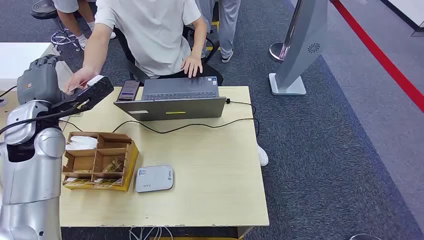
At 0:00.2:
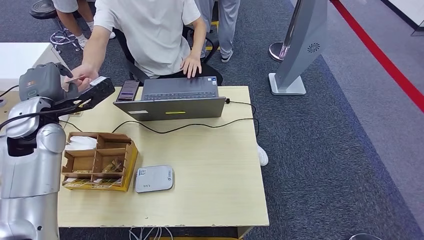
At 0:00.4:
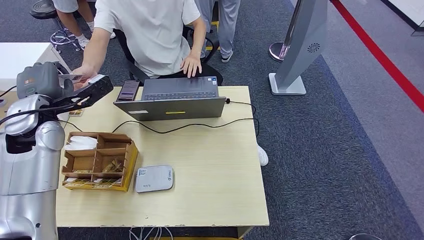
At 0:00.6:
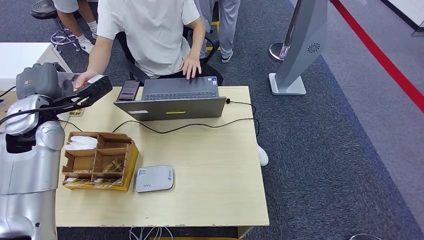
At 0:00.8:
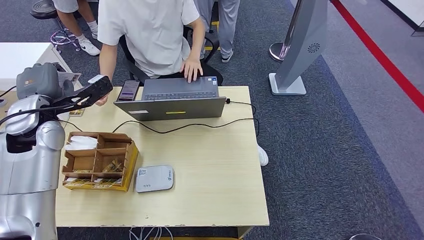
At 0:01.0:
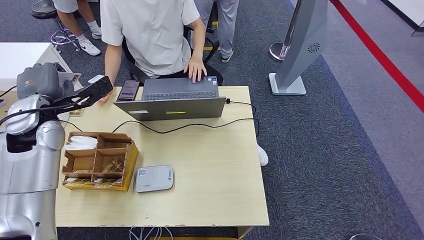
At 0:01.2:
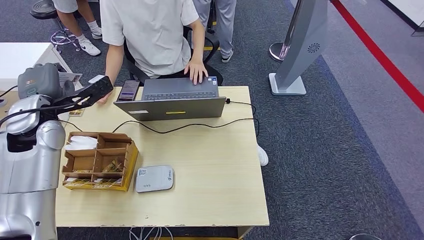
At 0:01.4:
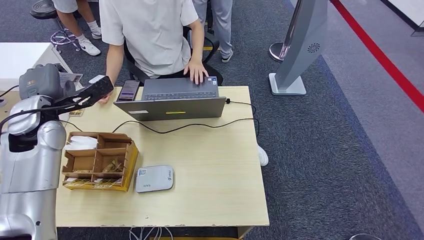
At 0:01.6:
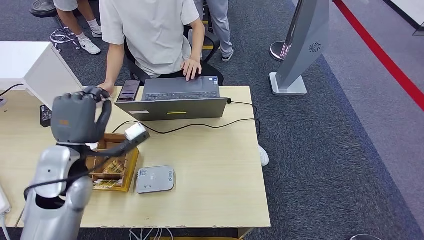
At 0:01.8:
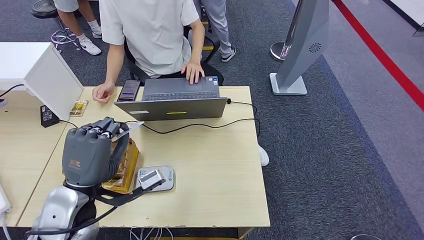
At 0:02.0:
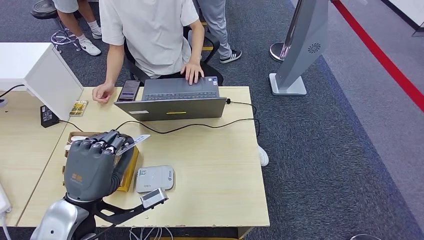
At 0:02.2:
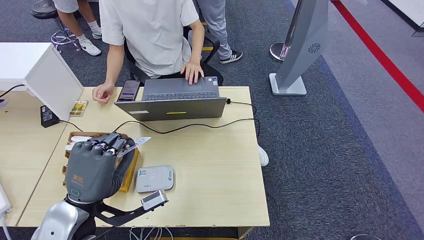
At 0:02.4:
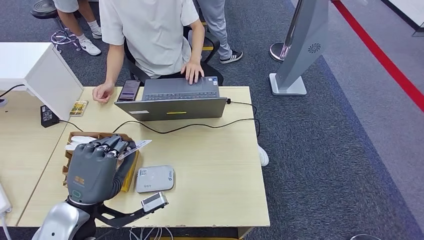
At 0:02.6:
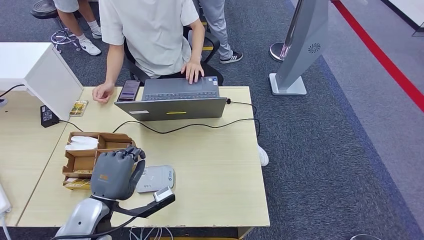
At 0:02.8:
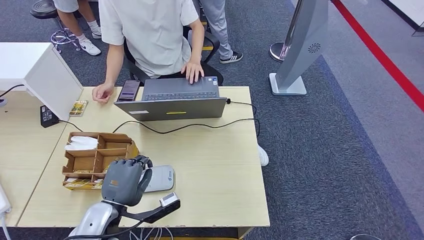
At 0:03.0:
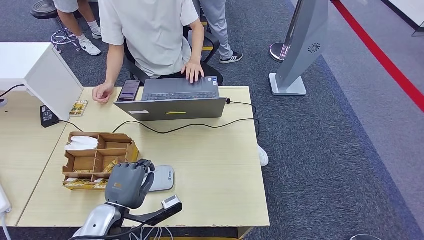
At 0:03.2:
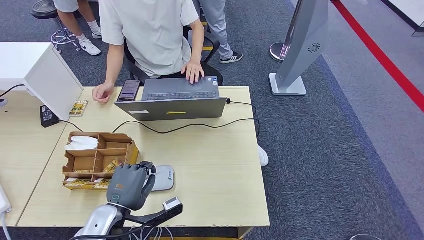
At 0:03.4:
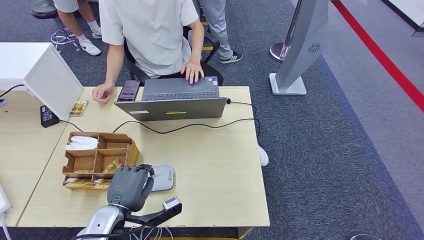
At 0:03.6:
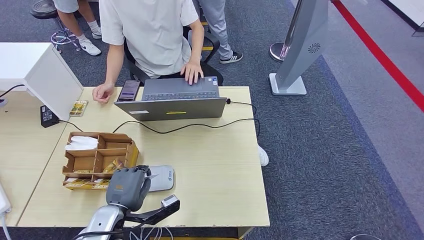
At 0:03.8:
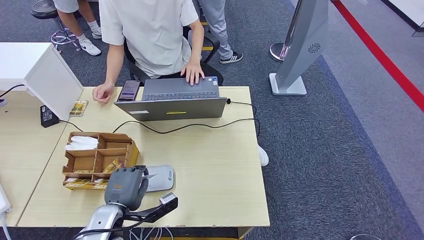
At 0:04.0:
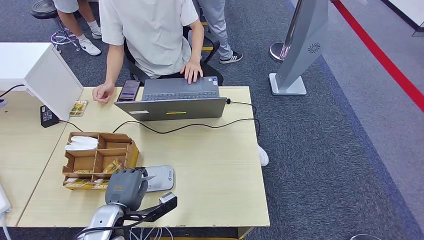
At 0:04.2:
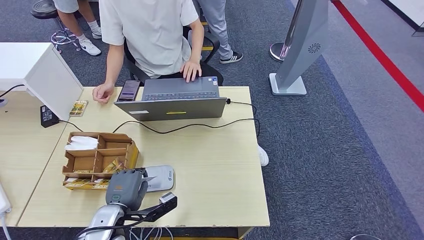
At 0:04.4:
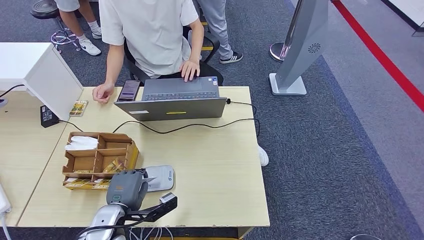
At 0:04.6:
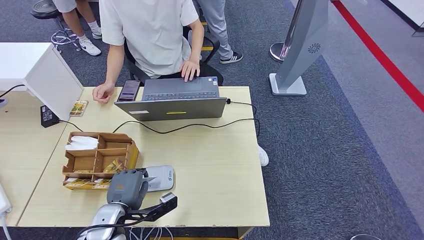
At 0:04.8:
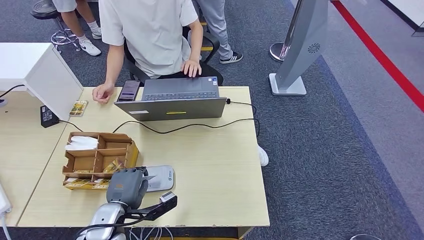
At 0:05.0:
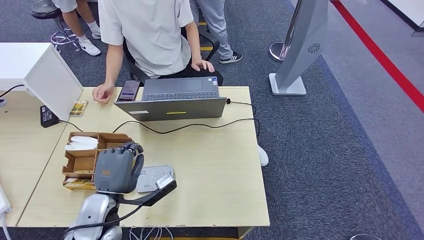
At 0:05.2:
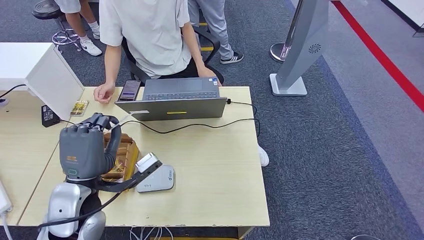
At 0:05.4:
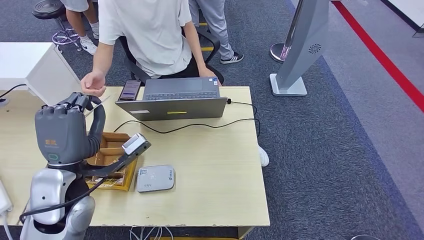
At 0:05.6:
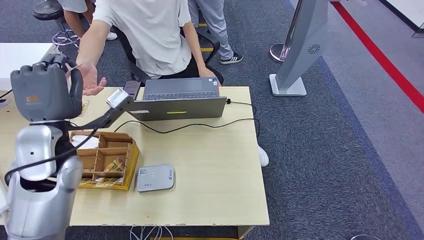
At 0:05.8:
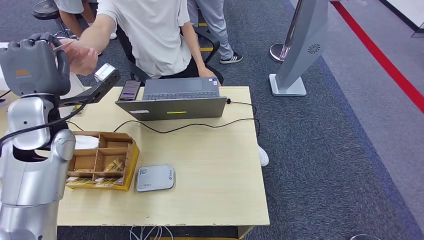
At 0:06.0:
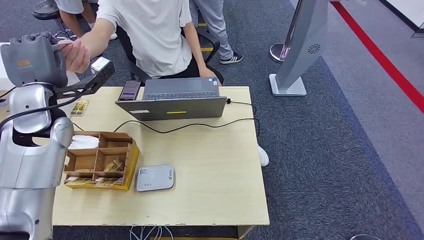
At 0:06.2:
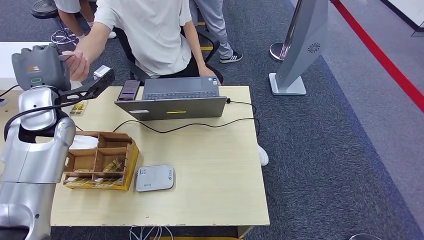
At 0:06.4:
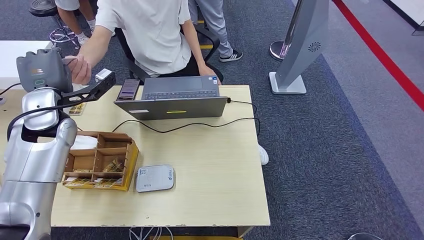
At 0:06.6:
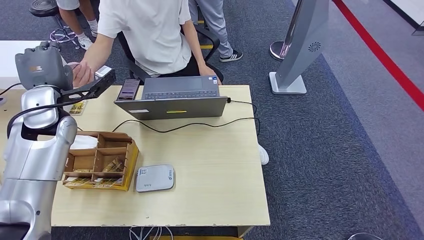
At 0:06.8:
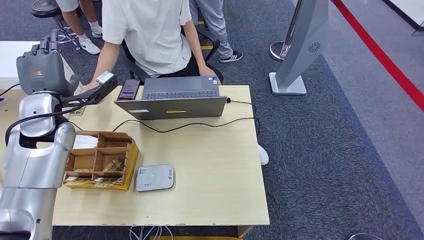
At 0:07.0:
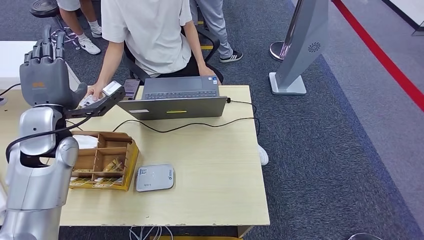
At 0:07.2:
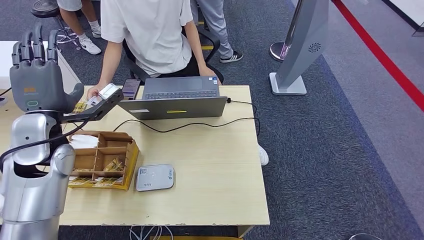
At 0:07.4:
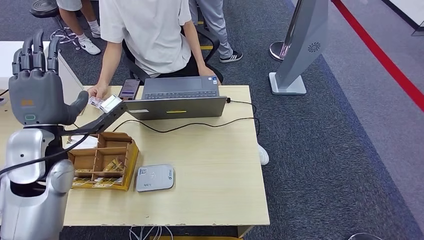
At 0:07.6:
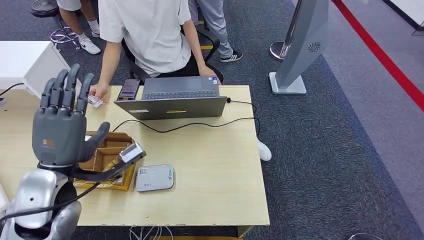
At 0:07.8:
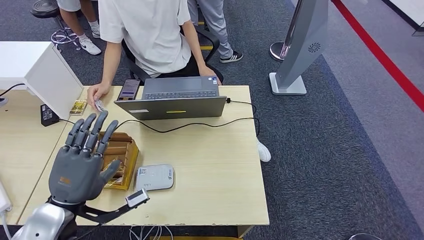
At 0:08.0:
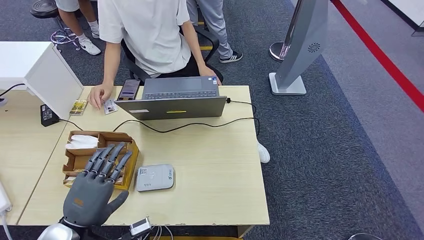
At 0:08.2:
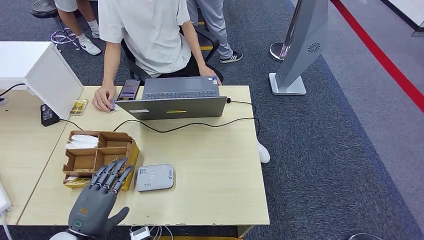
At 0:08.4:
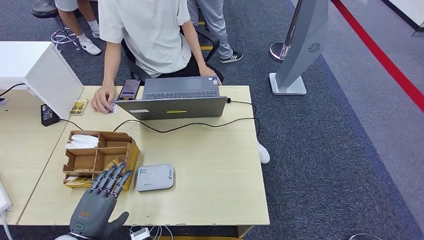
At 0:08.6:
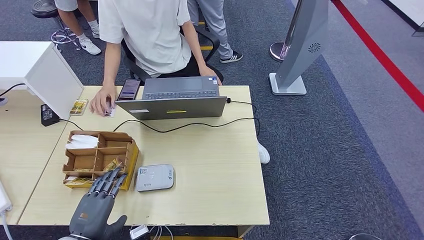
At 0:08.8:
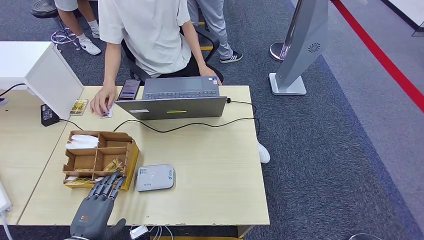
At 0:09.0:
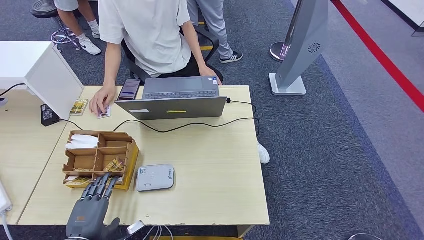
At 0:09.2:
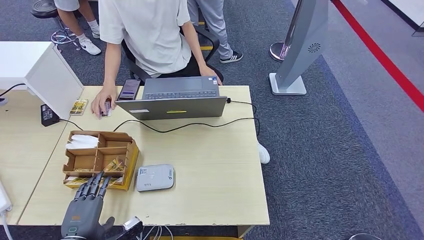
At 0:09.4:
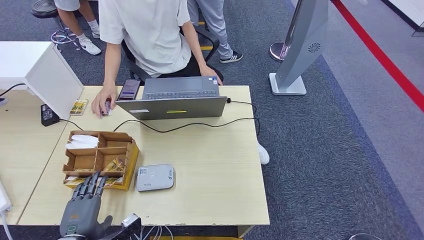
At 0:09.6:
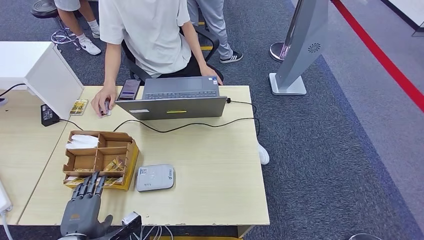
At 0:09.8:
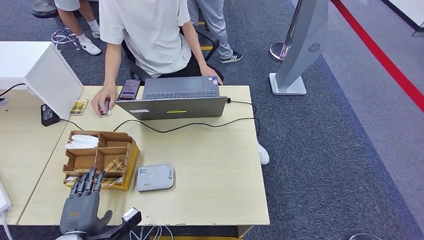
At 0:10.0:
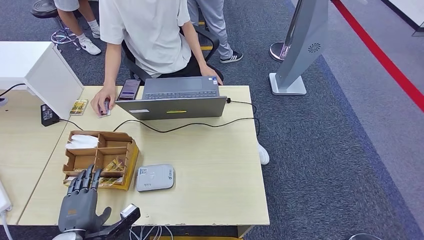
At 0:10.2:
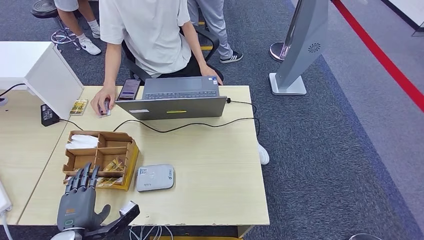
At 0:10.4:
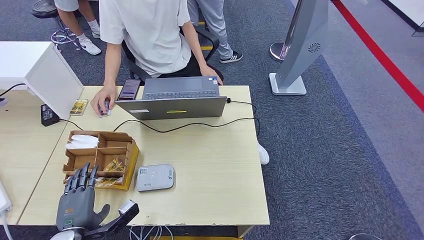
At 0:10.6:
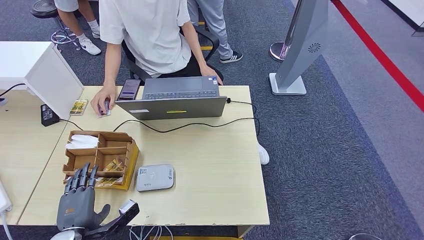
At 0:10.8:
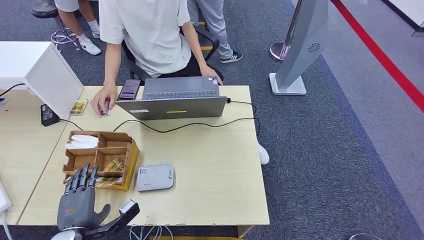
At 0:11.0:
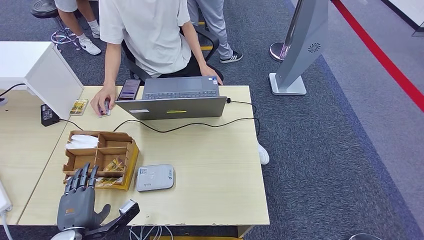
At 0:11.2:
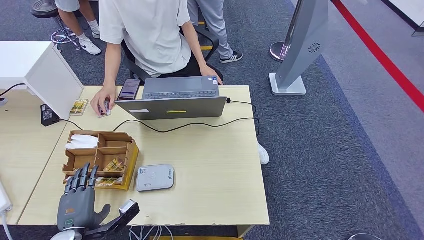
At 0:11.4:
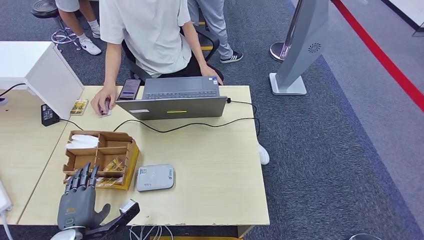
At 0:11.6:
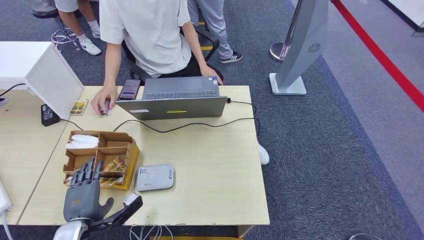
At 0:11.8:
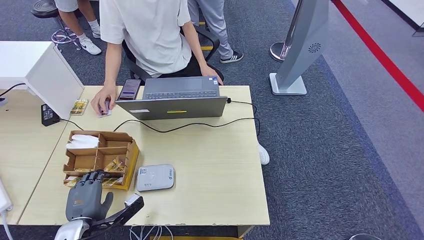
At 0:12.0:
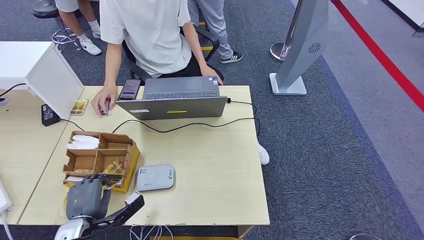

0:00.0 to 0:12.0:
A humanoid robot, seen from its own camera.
Step, 0:00.0 to 0:01.4: Take the ID card from the person's hand.
Step, 0:01.6 to 0:05.6: Place the ID card on the card reader.
Step, 0:05.8 to 0:07.6: Hand the ID card to the person.
0:01.6 to 0:03.0: The left hand travels downward and backward by about 15 cm.
0:03.0 to 0:04.4: The hands move only a little.
0:07.6 to 0:09.0: The left hand heads downward and backward, covering about 20 cm.
0:09.0 to 0:12.0: There are only small adjustments of the hands.

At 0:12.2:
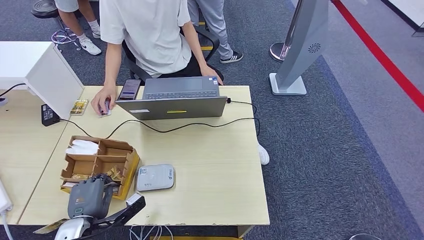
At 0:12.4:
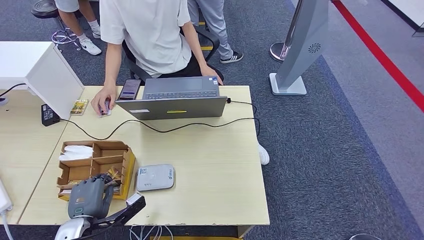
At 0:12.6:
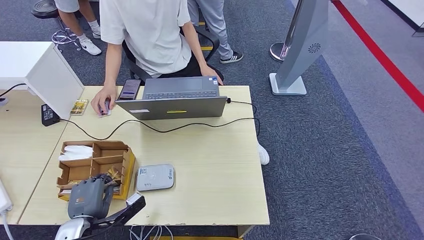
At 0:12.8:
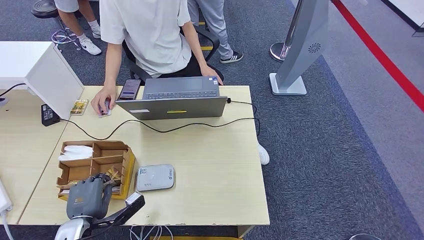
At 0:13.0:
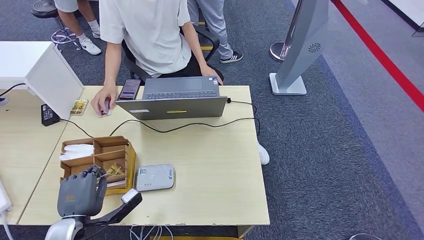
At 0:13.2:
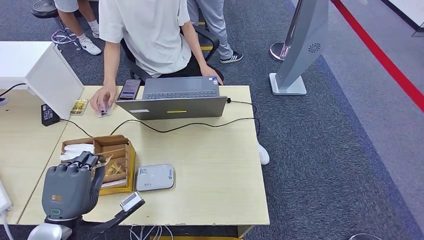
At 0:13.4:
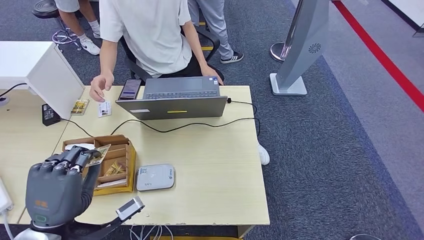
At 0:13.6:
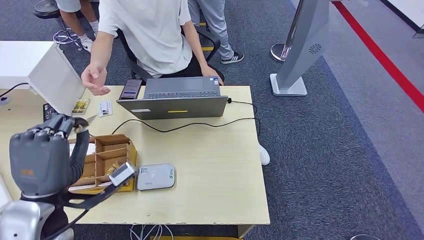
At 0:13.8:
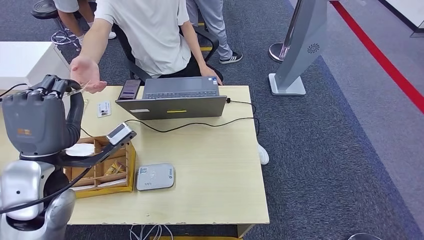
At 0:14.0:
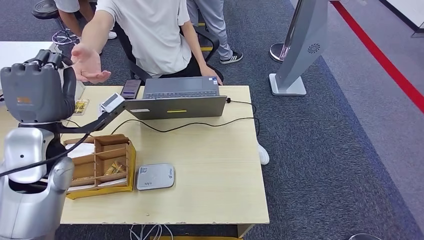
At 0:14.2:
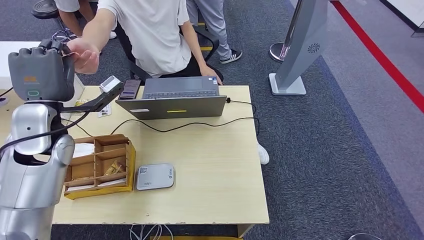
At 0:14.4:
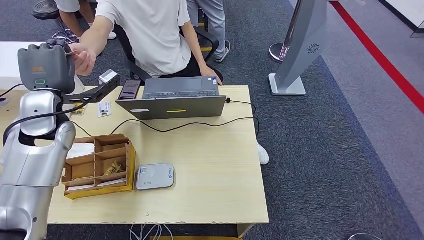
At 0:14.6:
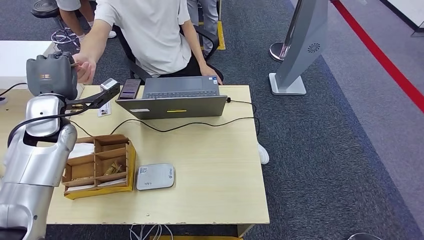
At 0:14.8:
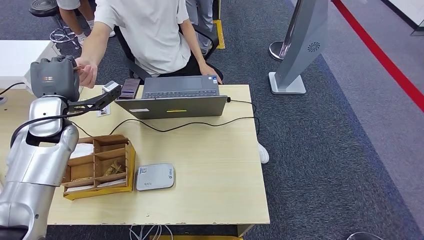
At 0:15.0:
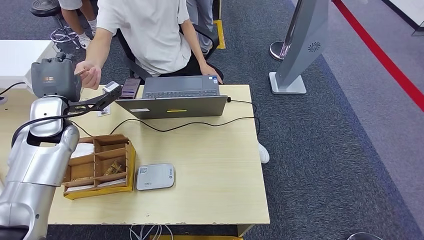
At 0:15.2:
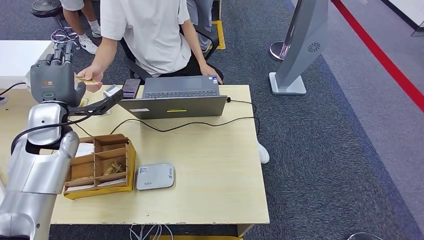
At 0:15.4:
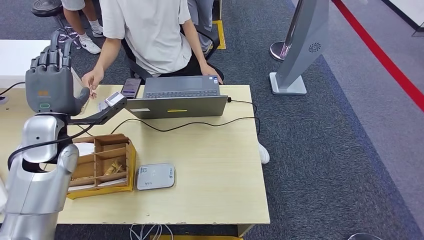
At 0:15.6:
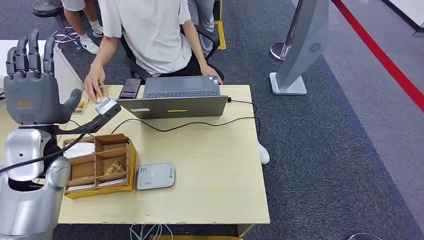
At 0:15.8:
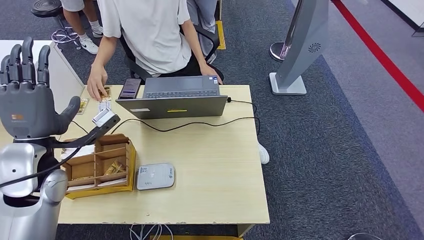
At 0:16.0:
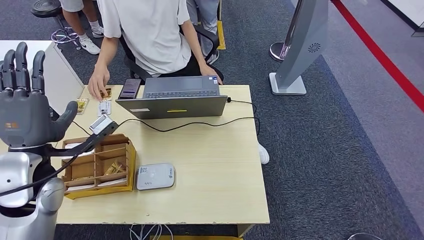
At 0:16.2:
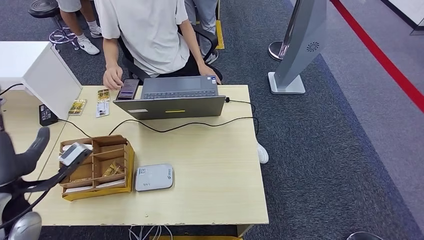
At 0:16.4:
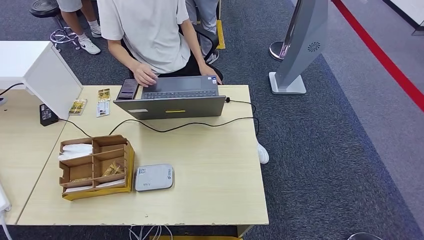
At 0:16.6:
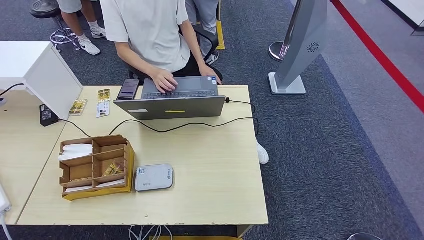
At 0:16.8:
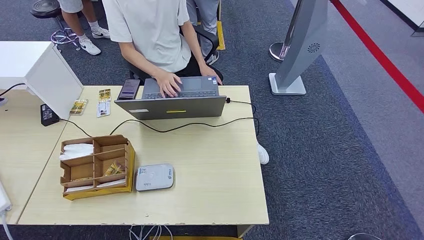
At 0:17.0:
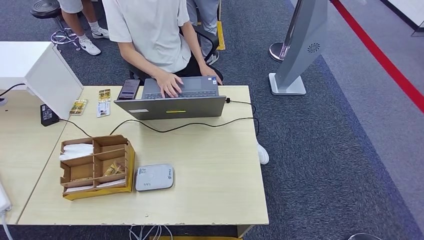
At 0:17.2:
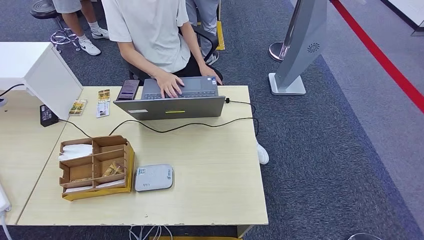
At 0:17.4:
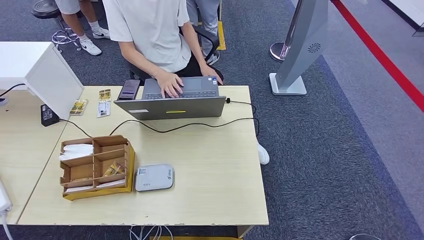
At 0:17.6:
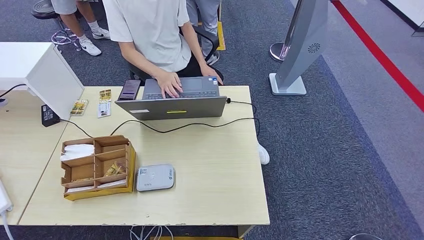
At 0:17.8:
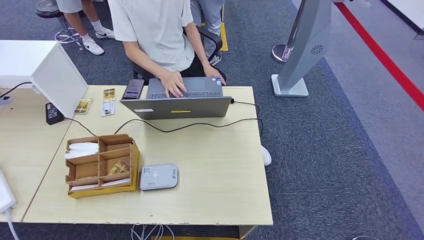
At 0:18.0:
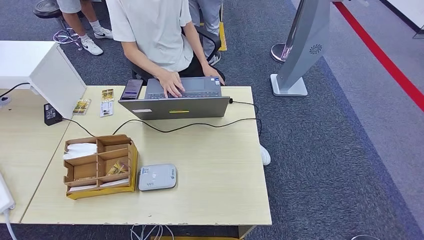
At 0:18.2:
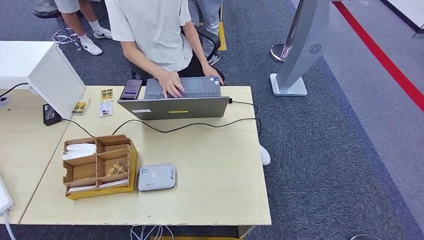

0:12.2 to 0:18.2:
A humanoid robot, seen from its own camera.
Step, 0:13.0 to 0:18.2: Hand the room key to the person.
0:13.8 to 0:15.2: The left hand is displaced forward by about 15 cm.
0:15.2 to 0:16.6: The left hand moves backward and to the left, roughly 40 cm.
0:16.6 to 0:18.2: The left hand moves downward and to the right, roughly 40 cm.
